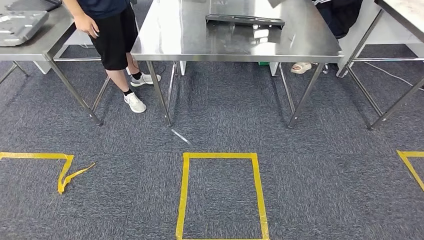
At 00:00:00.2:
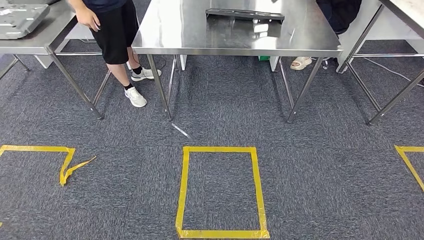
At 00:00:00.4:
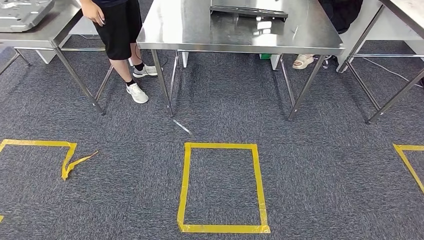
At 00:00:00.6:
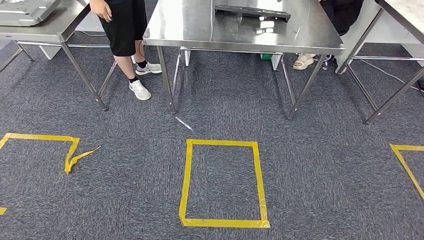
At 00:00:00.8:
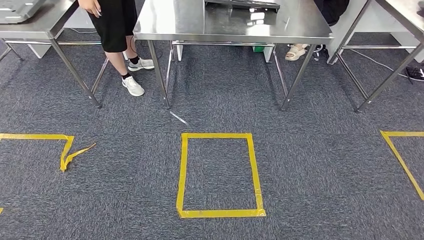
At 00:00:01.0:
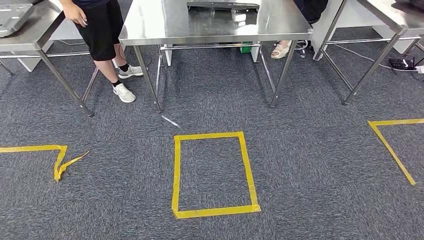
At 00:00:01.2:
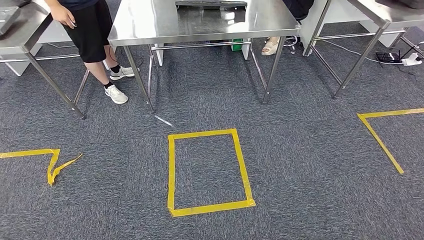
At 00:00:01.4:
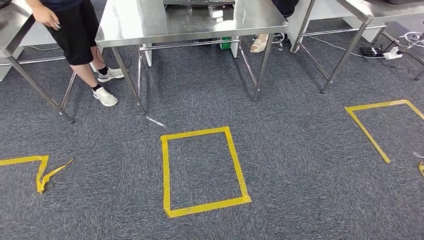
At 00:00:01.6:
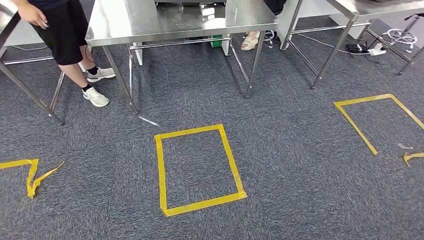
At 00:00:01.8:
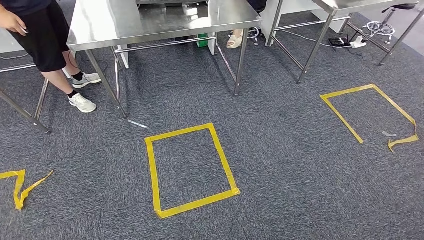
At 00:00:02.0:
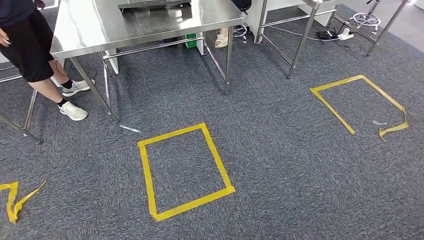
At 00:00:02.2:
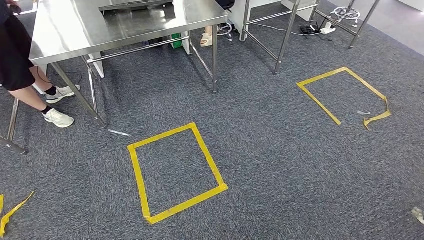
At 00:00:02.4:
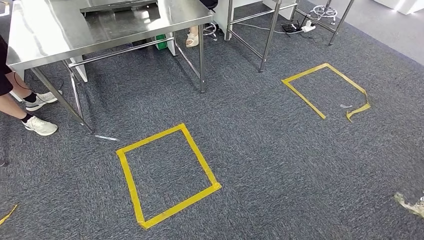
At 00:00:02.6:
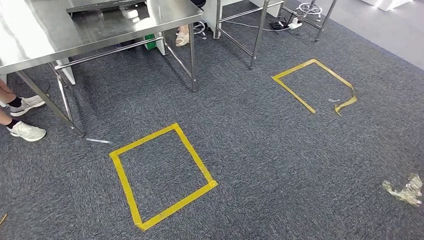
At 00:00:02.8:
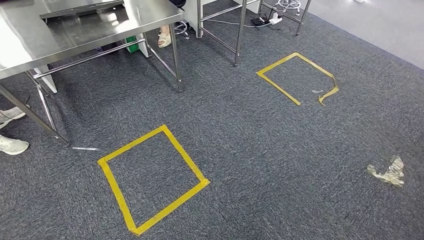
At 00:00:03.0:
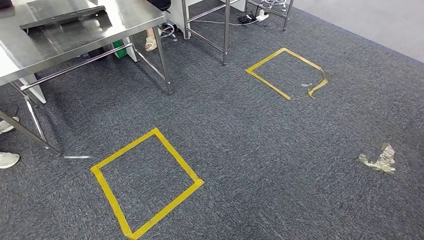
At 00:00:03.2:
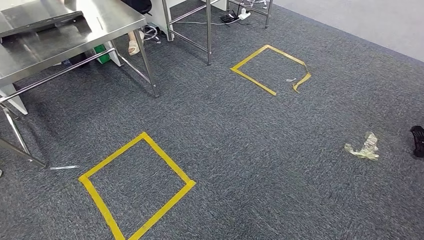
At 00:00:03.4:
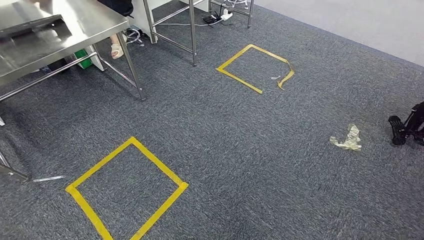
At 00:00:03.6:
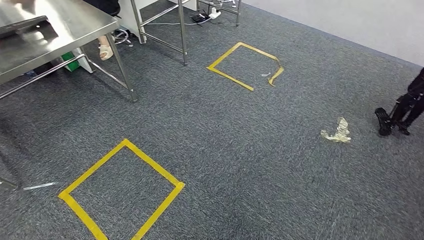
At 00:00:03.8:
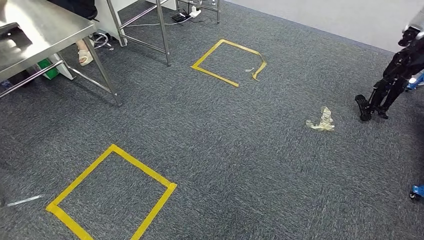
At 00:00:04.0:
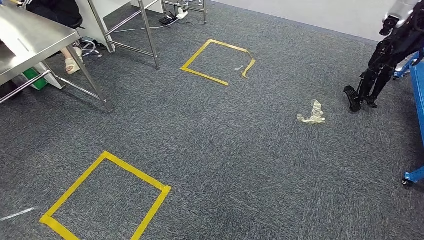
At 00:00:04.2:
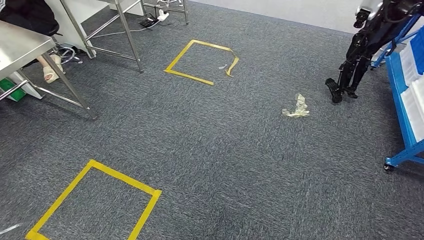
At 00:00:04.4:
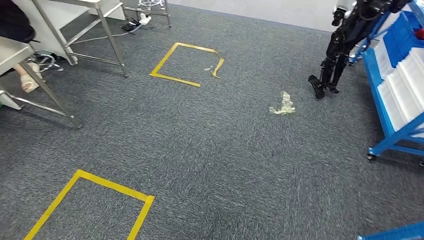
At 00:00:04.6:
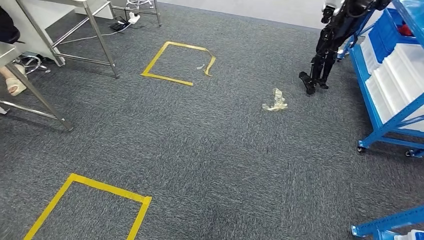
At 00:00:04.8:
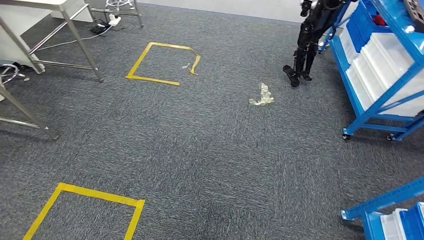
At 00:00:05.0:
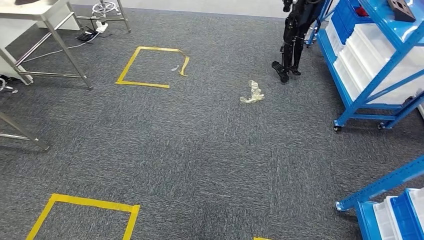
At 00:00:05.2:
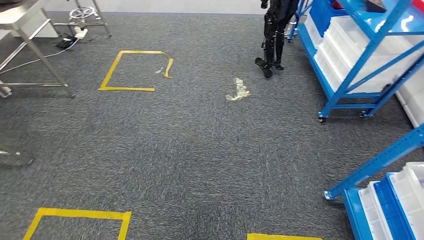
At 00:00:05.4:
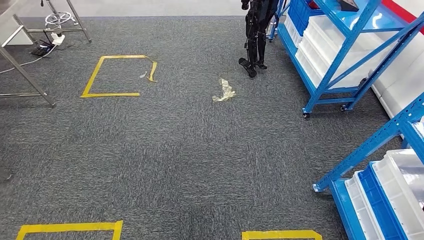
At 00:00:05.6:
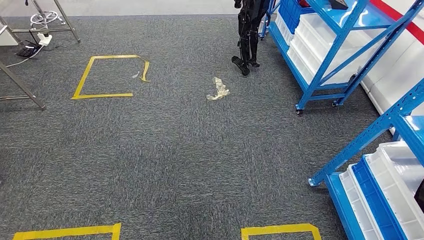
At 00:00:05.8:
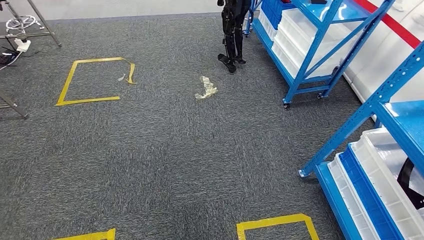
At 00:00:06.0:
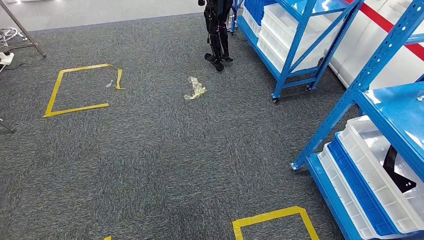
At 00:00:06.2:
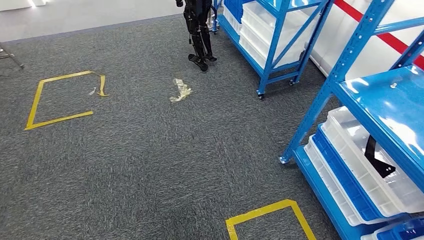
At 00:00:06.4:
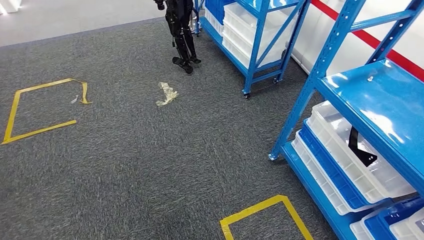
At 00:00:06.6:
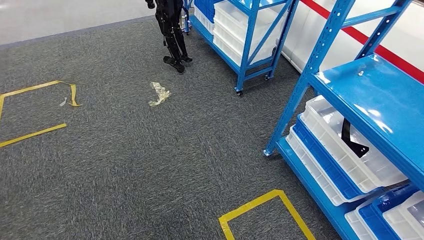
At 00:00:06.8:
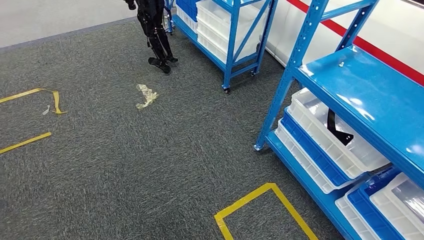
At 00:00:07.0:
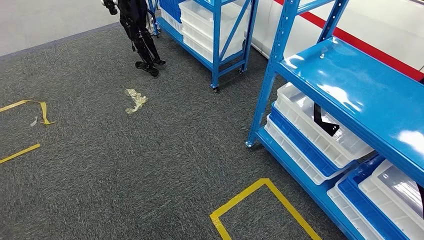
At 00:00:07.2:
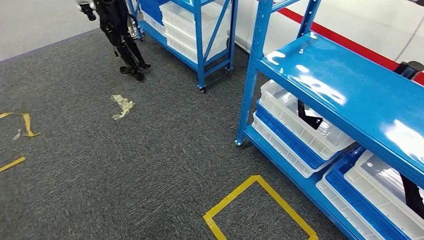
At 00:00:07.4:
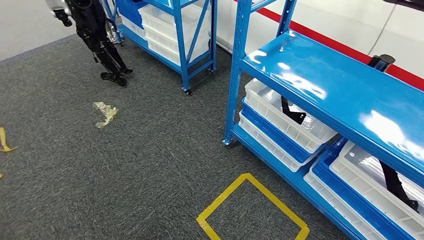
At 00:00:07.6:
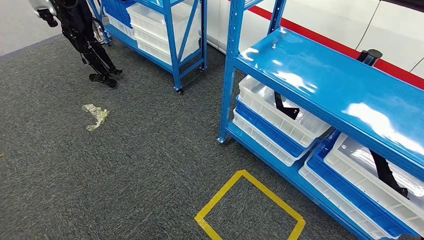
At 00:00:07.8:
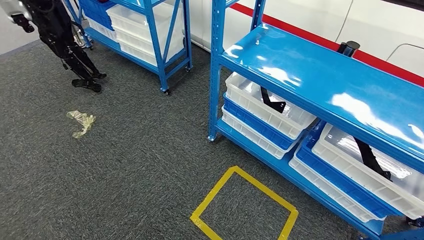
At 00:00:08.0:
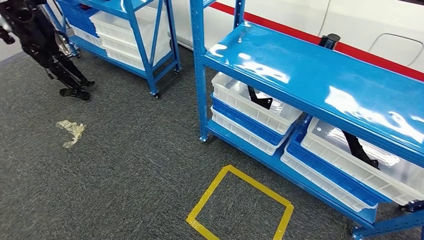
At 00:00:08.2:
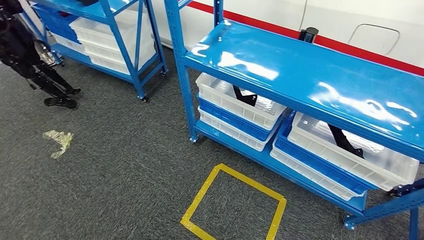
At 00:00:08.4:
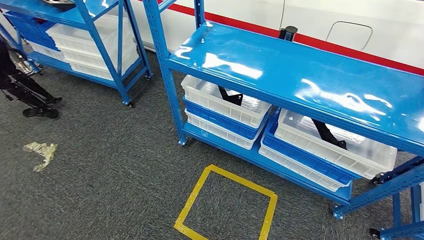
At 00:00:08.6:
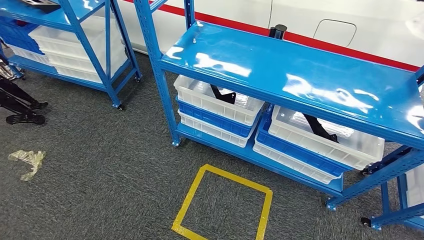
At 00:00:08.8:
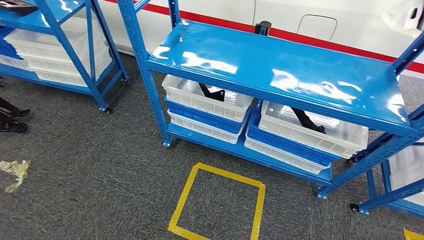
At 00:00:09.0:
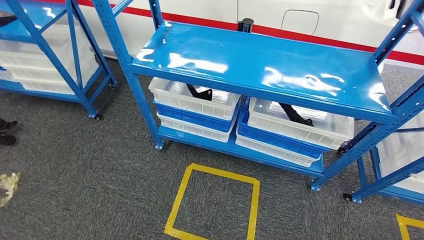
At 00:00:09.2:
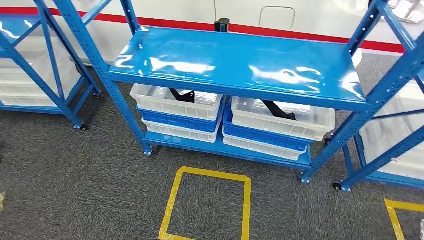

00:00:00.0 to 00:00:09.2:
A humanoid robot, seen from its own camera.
Step, 00:00:00.0 to 00:00:09.0: Move to the initial position of the shelf.
